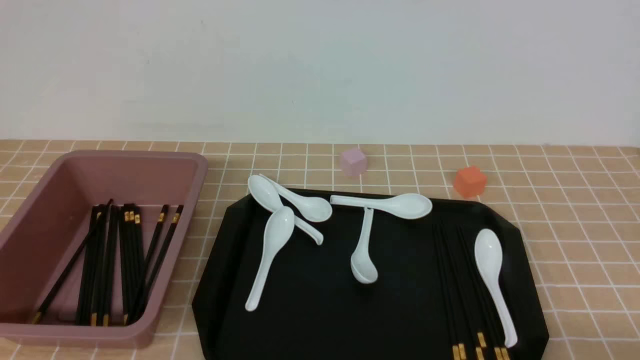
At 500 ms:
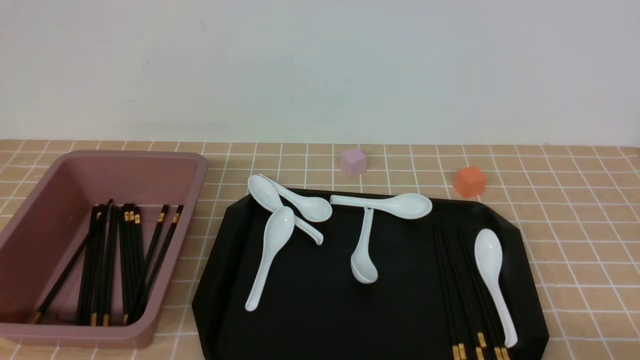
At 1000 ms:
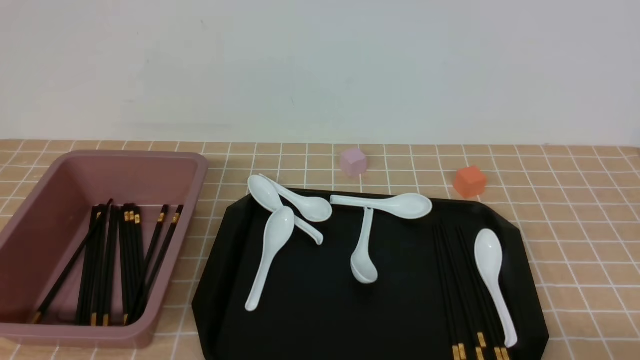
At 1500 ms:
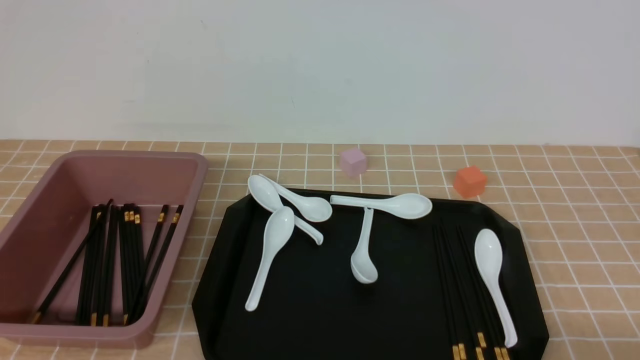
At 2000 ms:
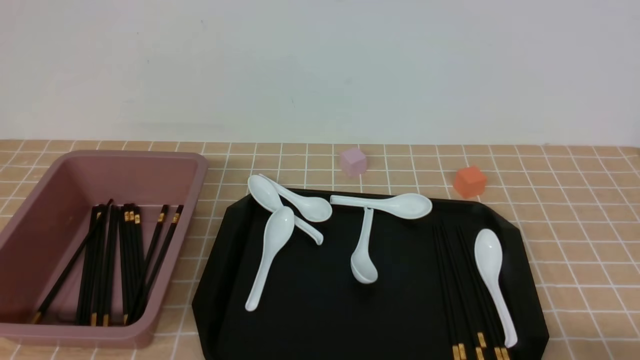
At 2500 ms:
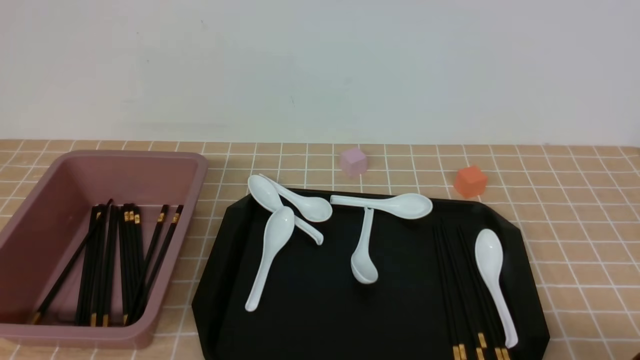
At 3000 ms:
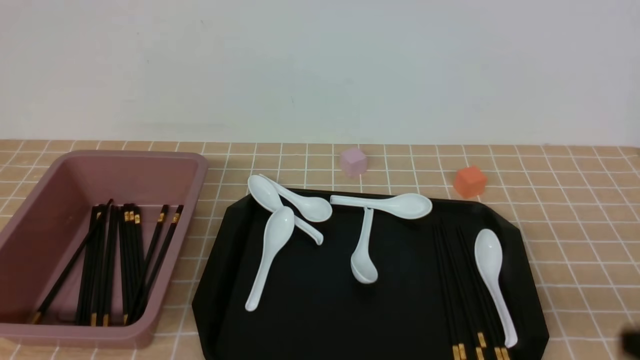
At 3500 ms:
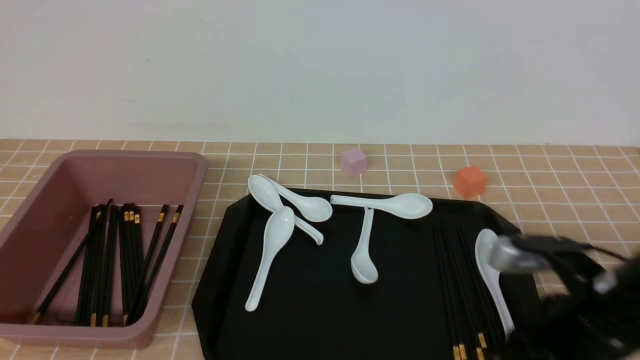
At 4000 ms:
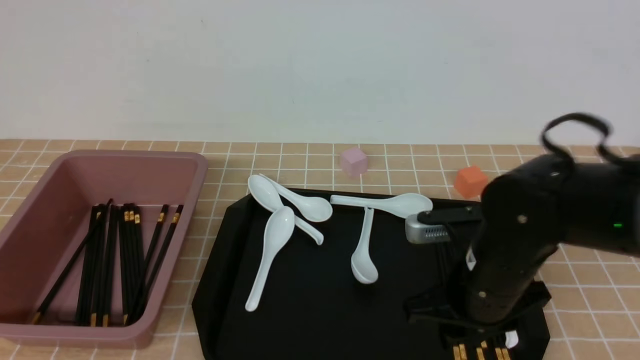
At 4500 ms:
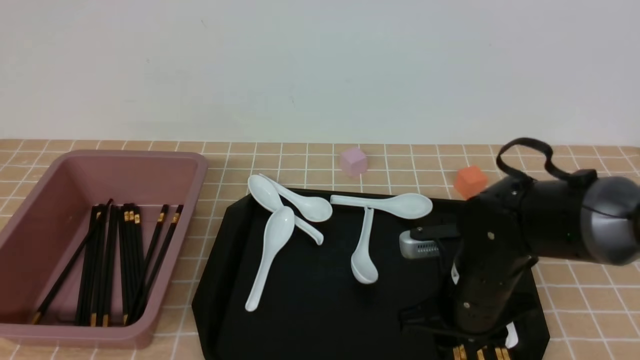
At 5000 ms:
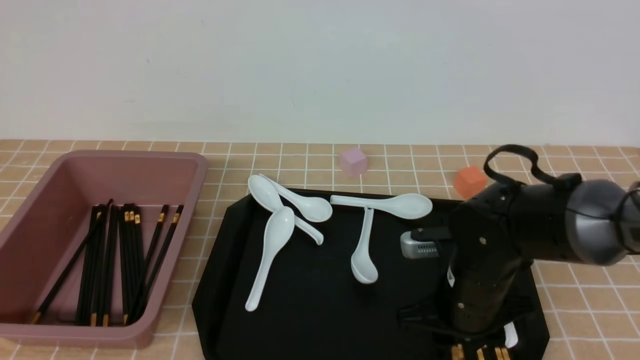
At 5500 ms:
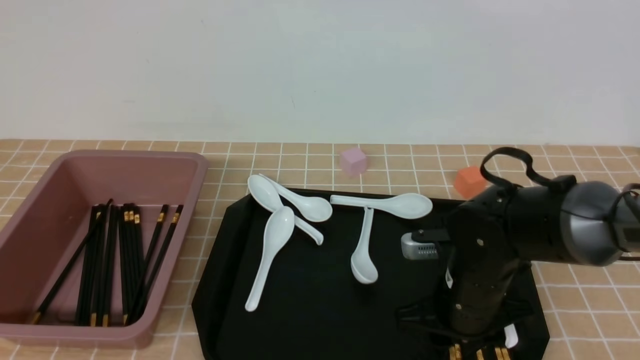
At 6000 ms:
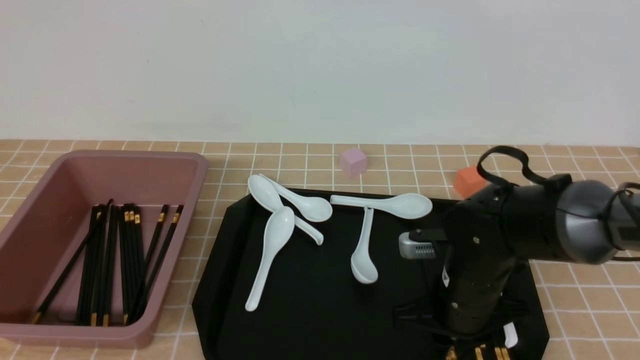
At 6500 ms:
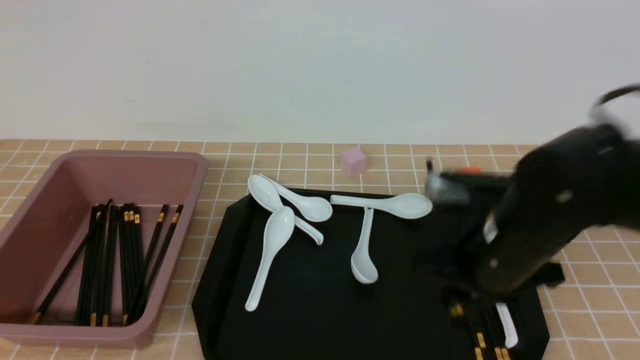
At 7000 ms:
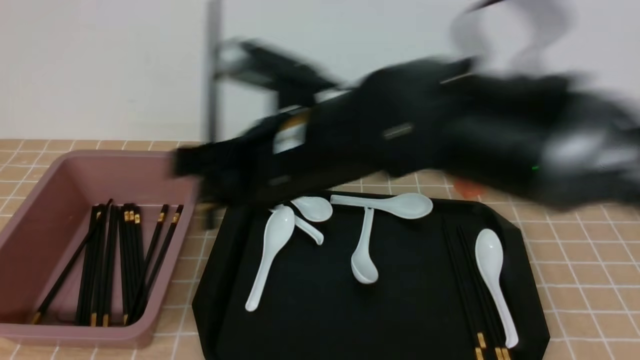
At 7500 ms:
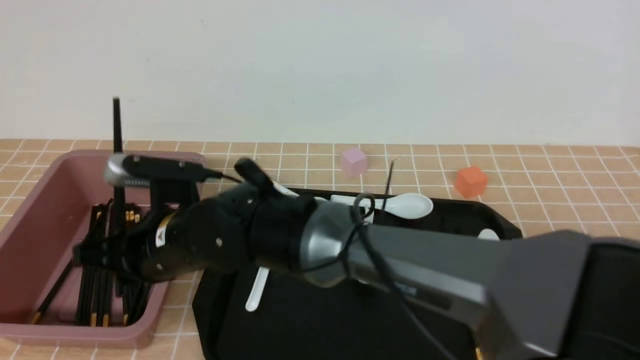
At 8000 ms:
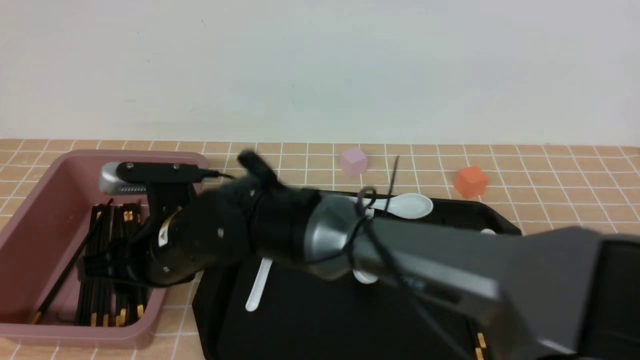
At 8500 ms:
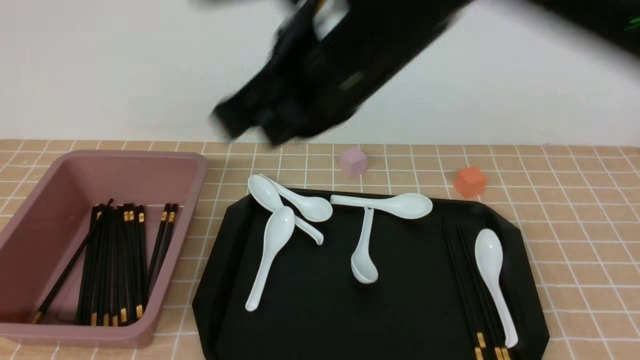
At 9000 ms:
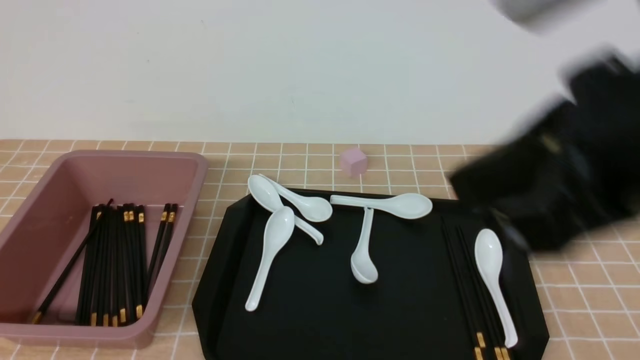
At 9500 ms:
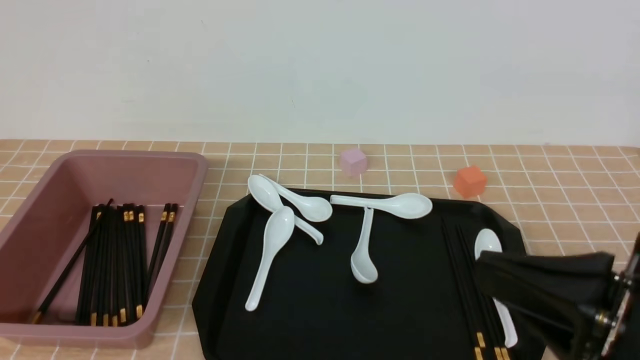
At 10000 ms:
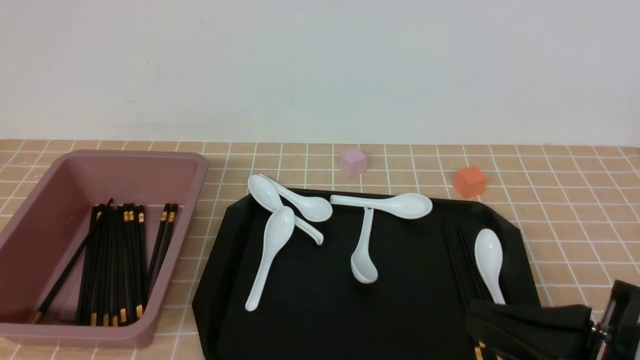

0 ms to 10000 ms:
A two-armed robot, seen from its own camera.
Step, 0 ms to 6000 ms: use the right arm to grab a pair of chopsticks.
Step, 6500 ms to 8000 ms: use the right arm to put the chopsticks into the lunch box.
2000 ms to 4000 ms: The right gripper heads forward and to the left, covering roughly 25 cm, and closes, then reopens.
4000 ms to 6000 ms: The right gripper ends up about 5 cm from where it was, and closes its fingers.
6000 ms to 8000 ms: The right gripper is displaced to the left by some 25 cm, and opens up.
8000 ms to 10000 ms: The right gripper travels to the right and backward by roughly 35 cm, and closes up.

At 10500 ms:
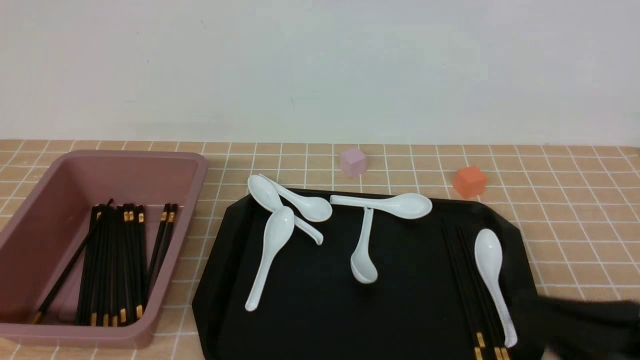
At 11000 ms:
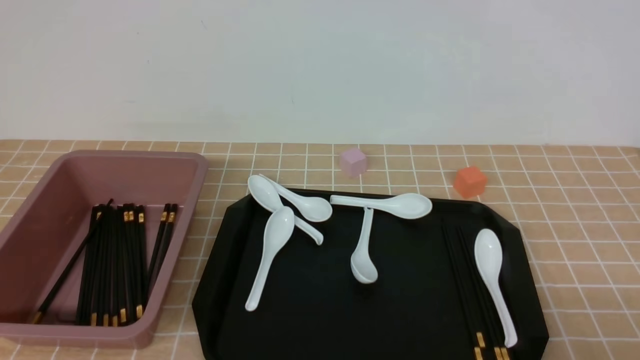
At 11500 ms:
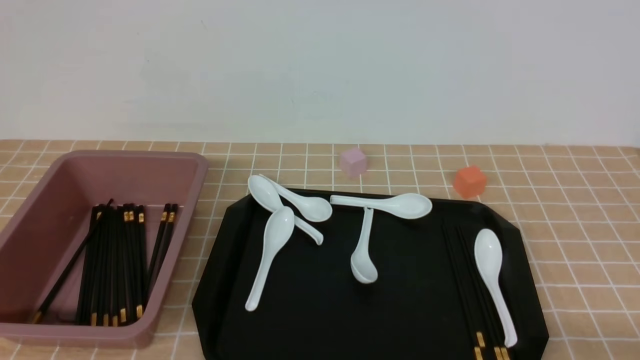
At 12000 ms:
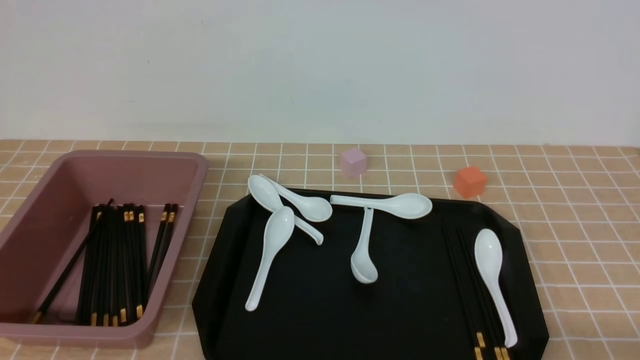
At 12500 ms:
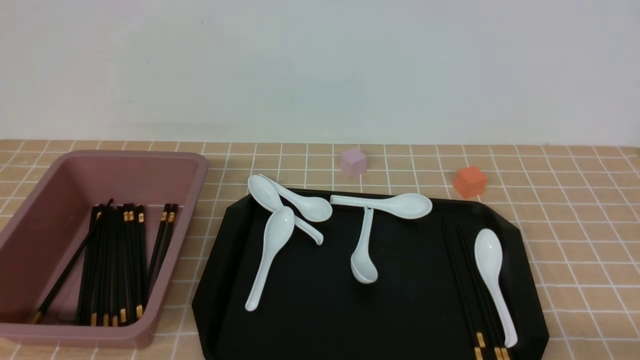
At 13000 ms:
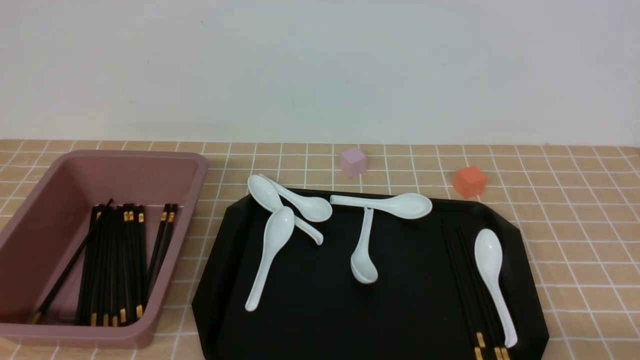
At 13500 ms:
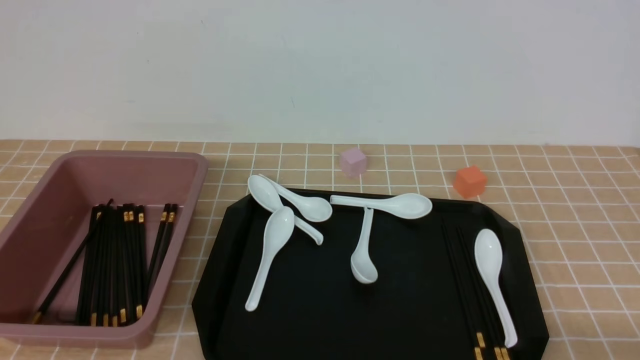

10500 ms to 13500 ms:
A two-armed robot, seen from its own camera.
10500 ms to 12000 ms: The right gripper shifts some 15 cm downward and to the right.
12000 ms to 13500 ms: Neither gripper changes place.

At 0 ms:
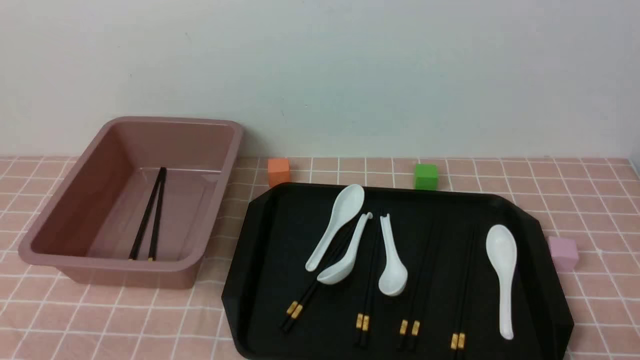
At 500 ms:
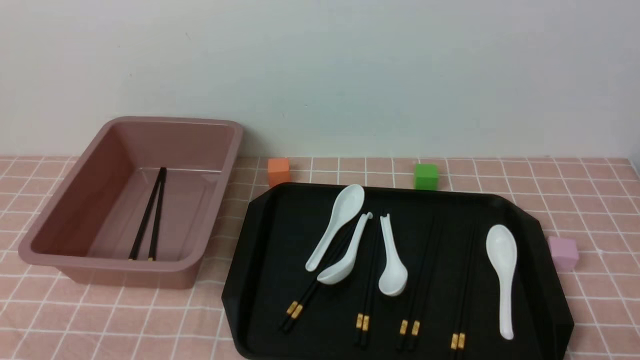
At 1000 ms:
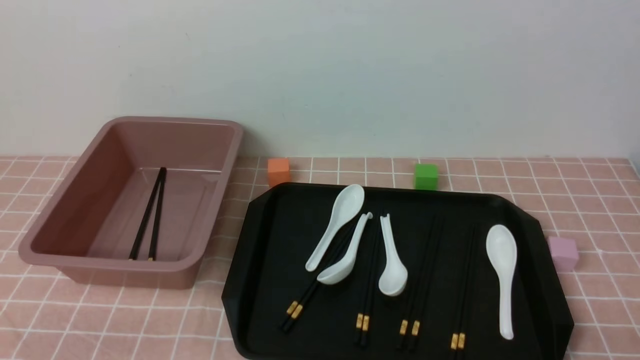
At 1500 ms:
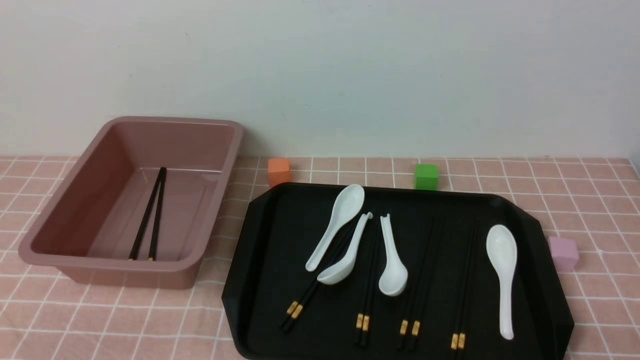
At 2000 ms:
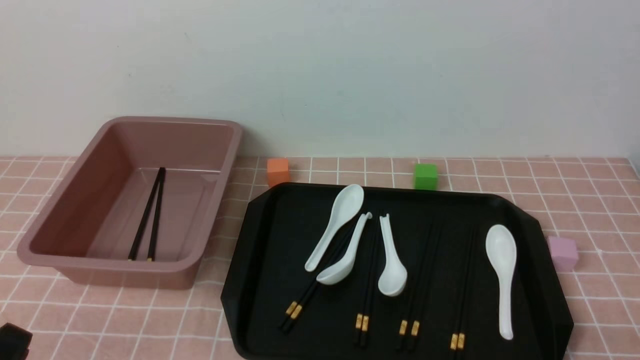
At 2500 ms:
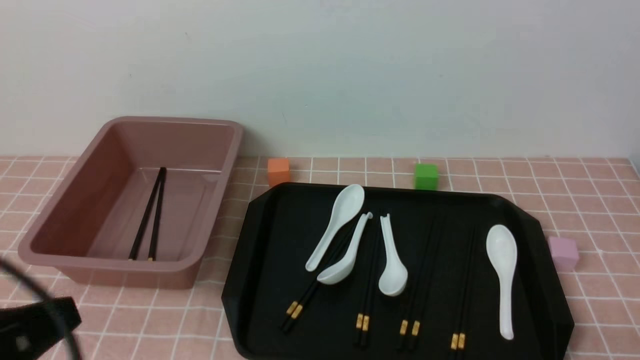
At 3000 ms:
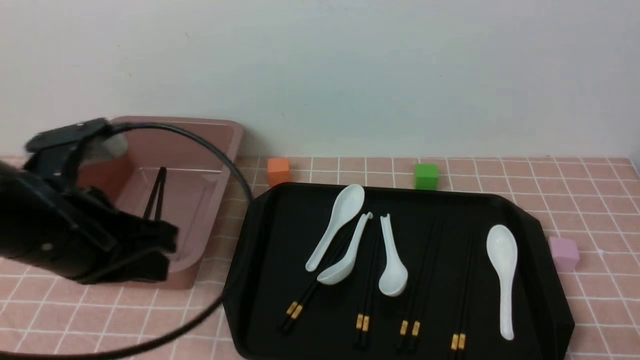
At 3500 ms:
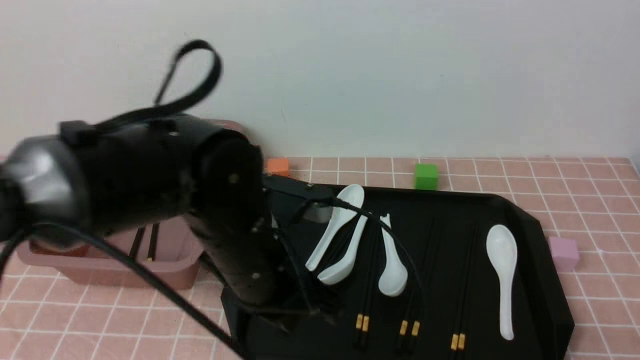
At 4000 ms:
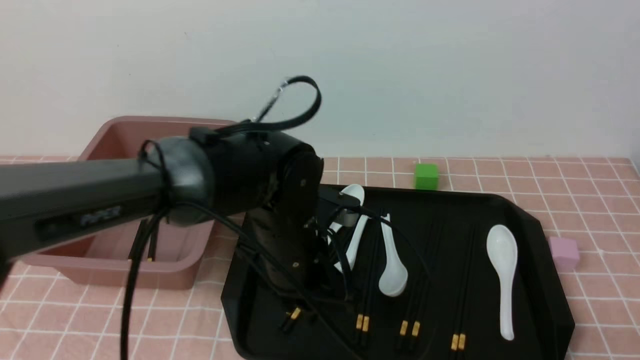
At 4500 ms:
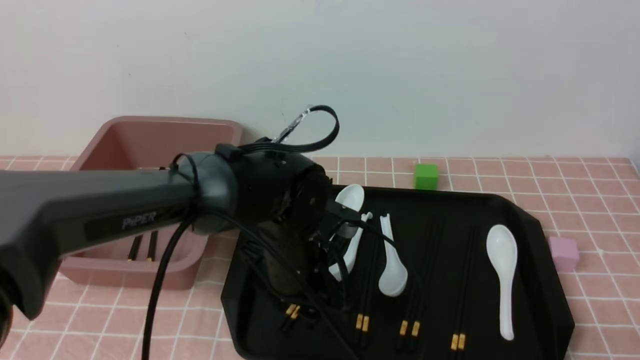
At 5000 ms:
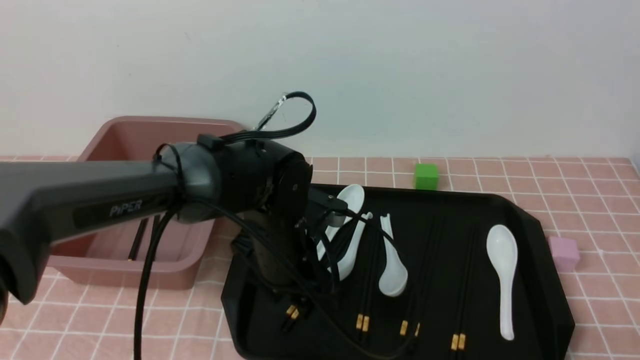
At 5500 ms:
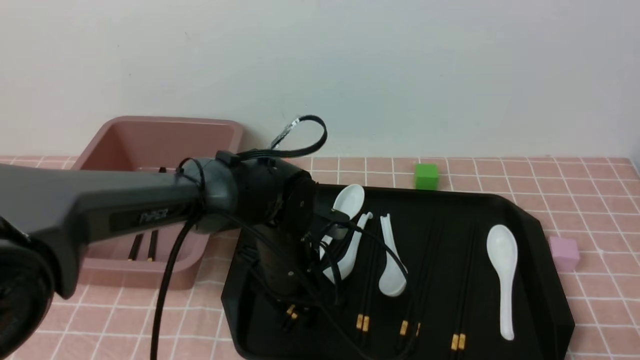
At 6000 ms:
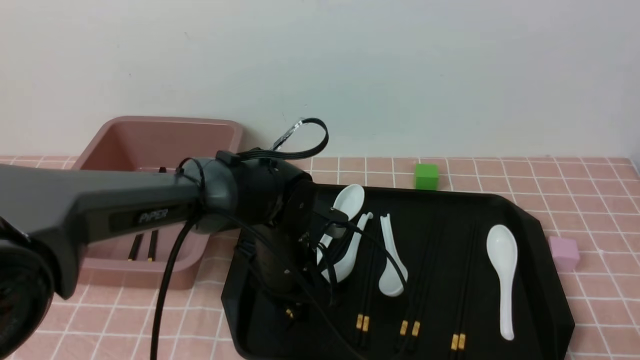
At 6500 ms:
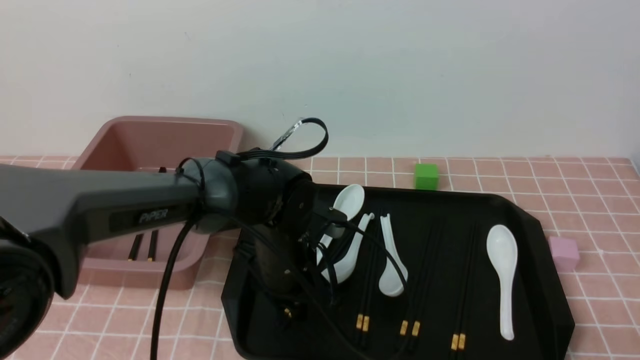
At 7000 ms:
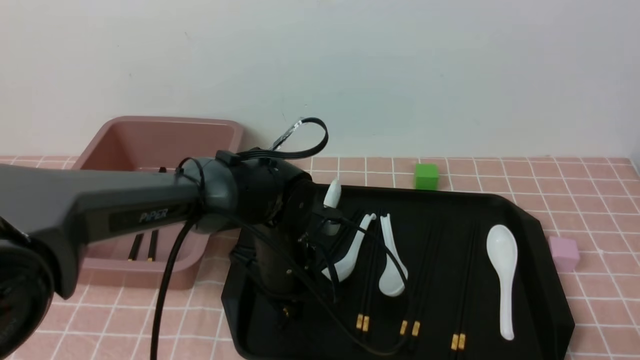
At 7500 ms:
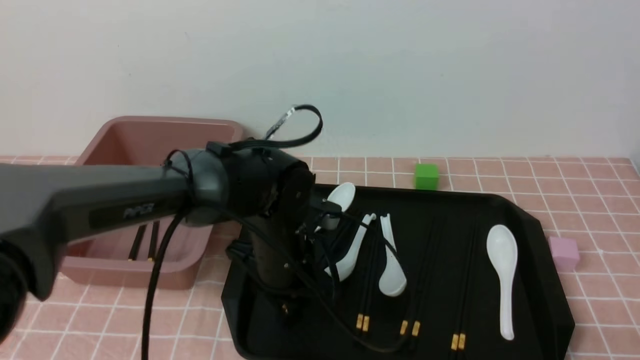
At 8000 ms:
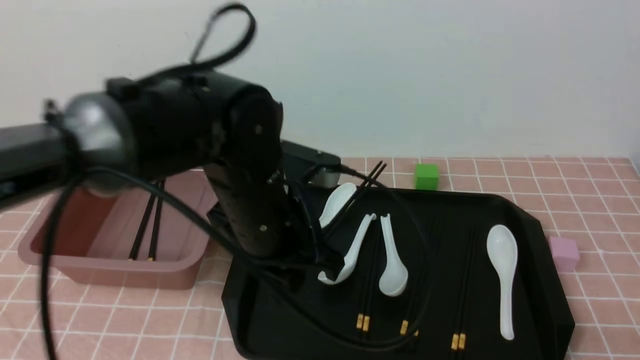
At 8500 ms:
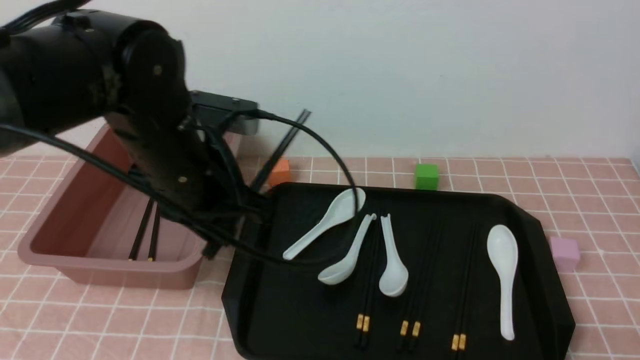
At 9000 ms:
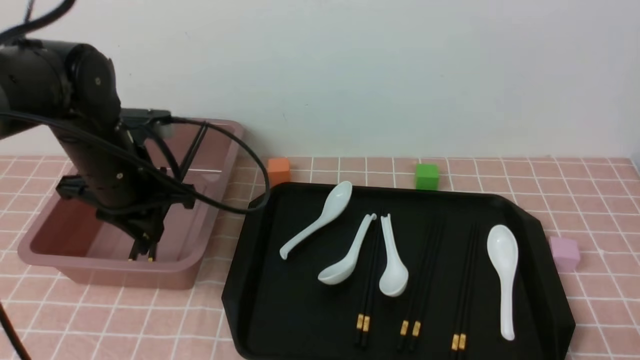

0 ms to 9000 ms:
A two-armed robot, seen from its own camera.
Step, 0 ms to 7500 ms: use the left arm to grab a pair of chopsticks.
2000 ms to 4500 ms: The left gripper is displaced forward and to the right by about 35 cm, and opens its fingers.
4500 ms to 7000 ms: The left gripper closes up.
7000 ms to 9000 ms: The left gripper moves to the left and upward, some 20 cm.
